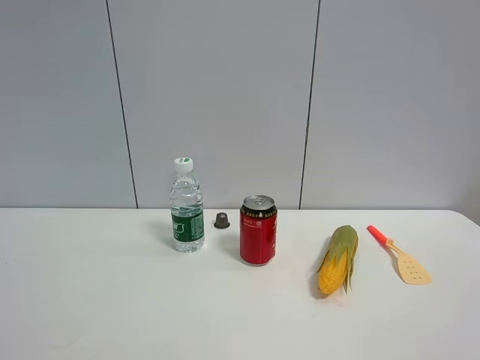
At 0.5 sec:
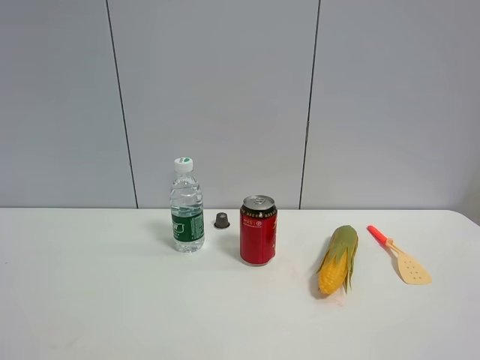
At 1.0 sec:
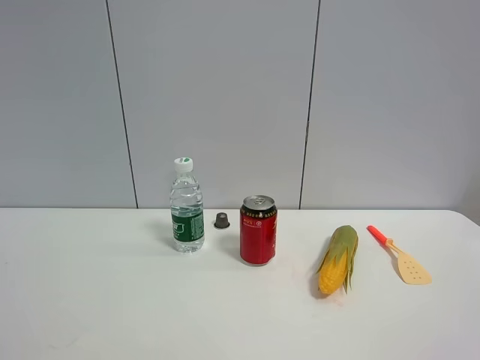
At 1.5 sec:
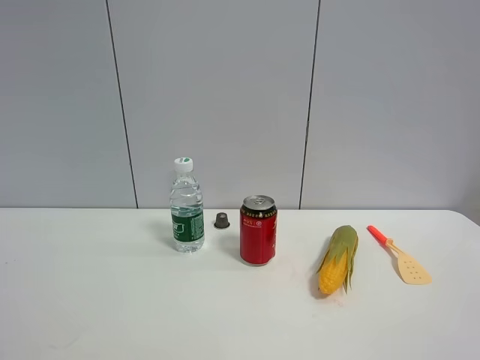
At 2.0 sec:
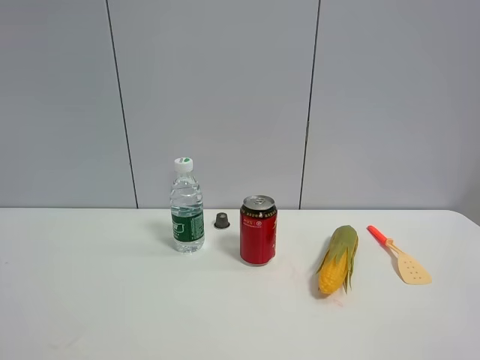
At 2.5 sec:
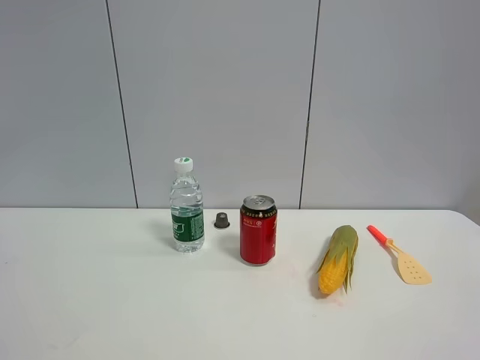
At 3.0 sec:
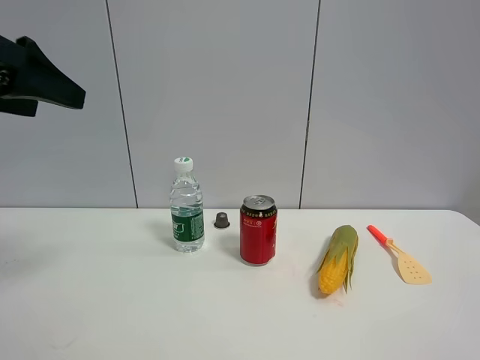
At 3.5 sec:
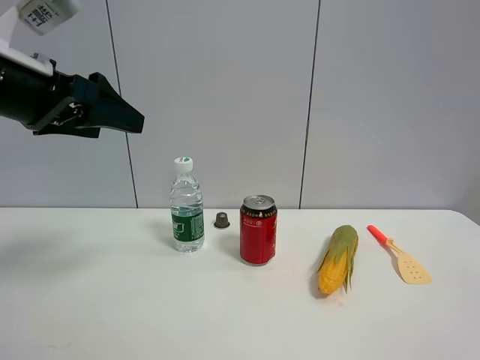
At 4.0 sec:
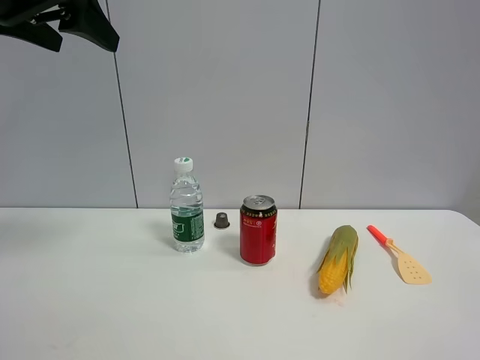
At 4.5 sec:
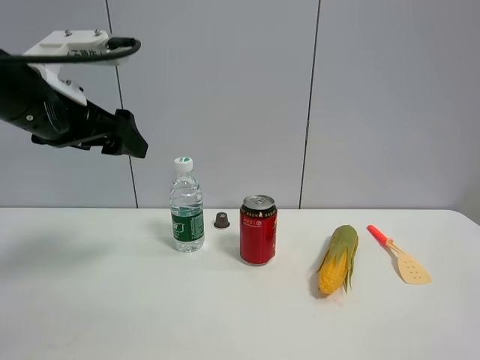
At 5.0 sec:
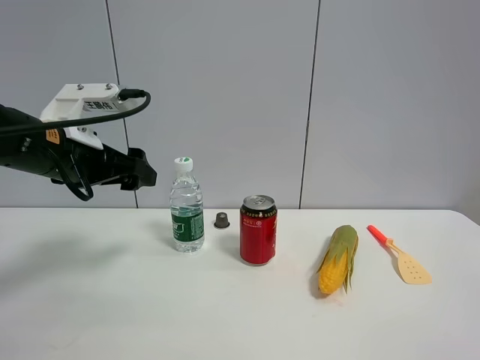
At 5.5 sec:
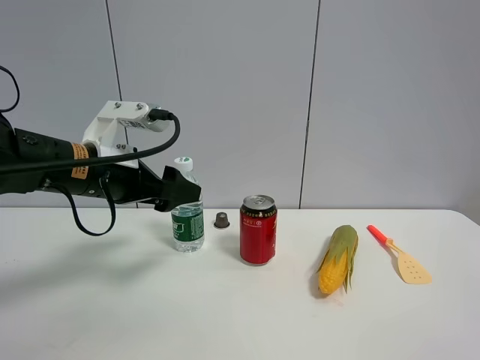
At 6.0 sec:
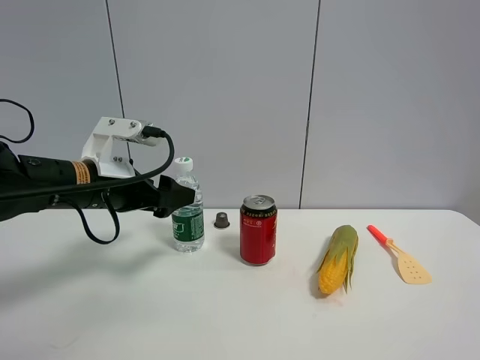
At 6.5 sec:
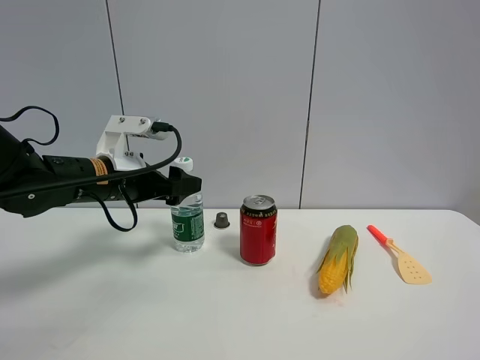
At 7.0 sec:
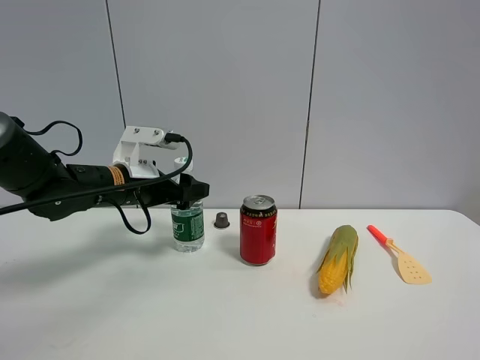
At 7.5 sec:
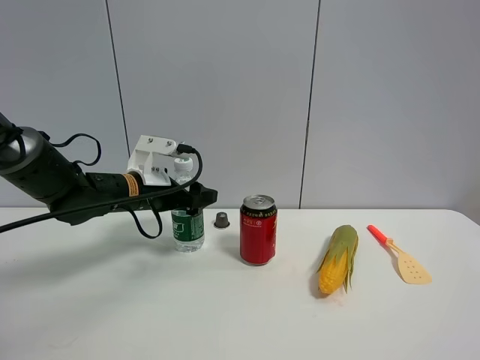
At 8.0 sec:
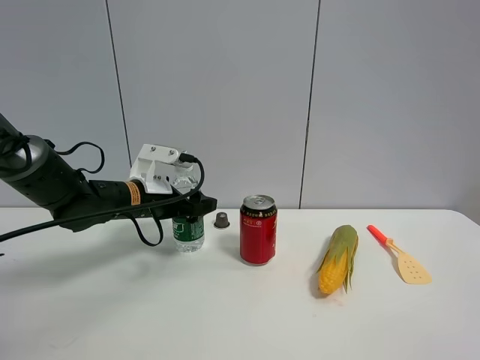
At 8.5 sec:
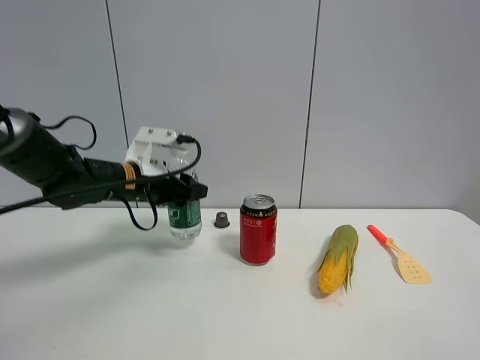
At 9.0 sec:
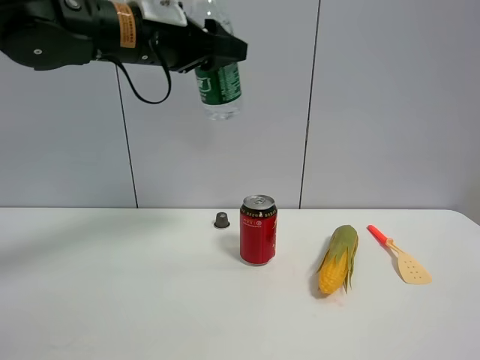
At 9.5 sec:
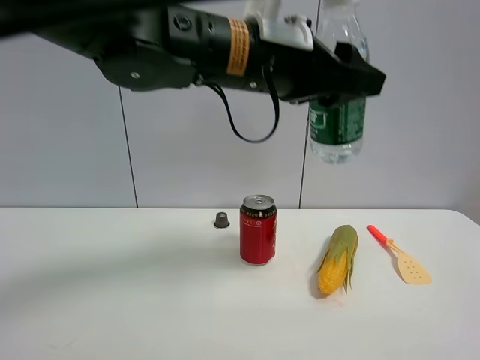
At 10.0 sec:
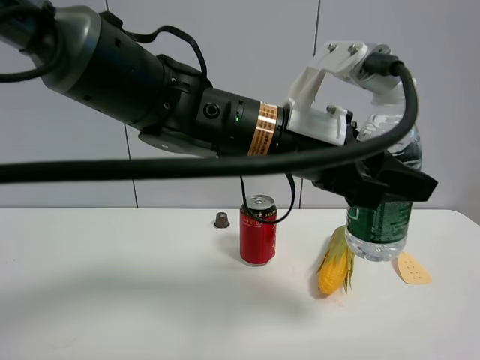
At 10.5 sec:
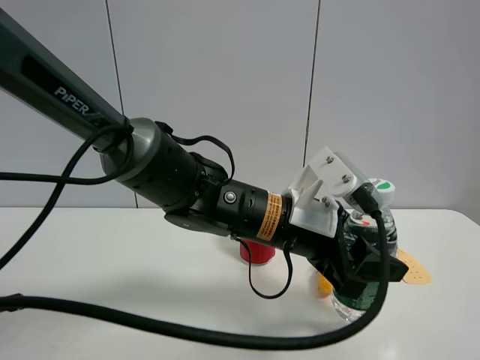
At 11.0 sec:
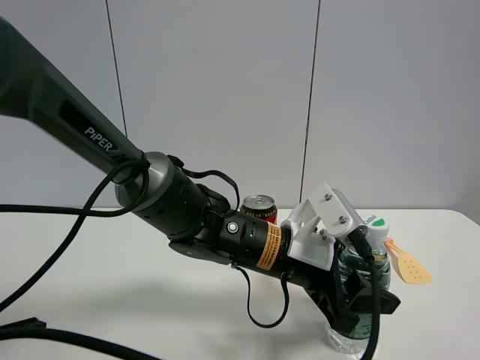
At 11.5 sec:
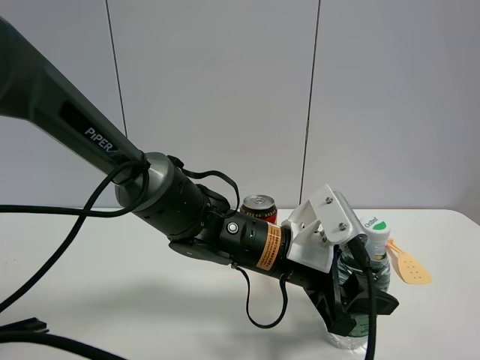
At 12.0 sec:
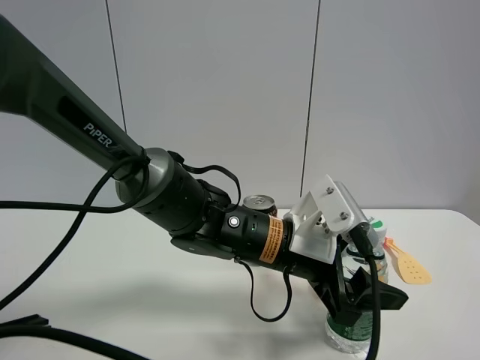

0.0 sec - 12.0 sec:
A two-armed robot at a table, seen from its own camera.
Task of the whole recording: the gripper move the object.
Step, 0.0 sec - 8.0 sec: Grasp the YiBao mineral water with the left gripper.
2.0 sec - 4.0 sec: The left gripper shifts some 30 cm forward, and opens its fingers.
4.0 sec - 6.0 sec: The left gripper shifts approximately 25 cm downward.
6.0 sec - 8.0 sec: The left gripper shifts approximately 10 cm forward and downward, and closes its fingers.
8.0 sec - 10.0 sec: The left gripper moves to the right, backward and upward, some 30 cm, and closes up.
10.0 sec - 12.0 sec: The left gripper is displaced downward by approximately 10 cm, and opens up.

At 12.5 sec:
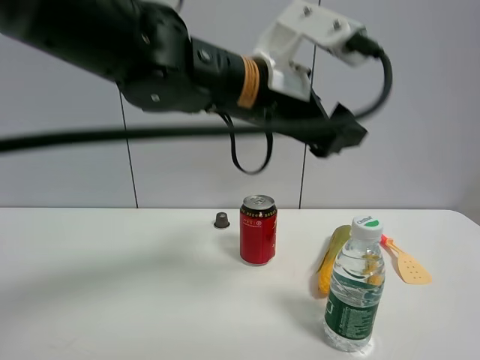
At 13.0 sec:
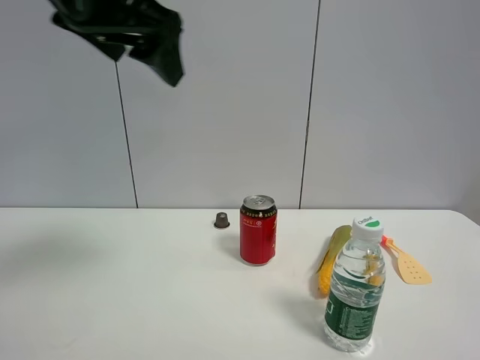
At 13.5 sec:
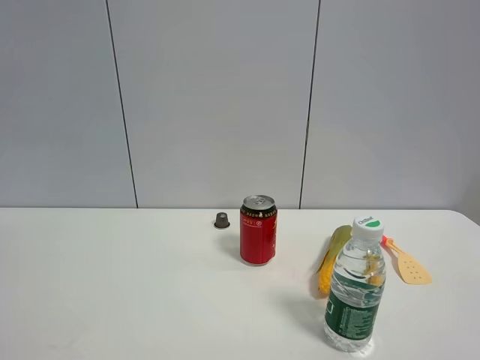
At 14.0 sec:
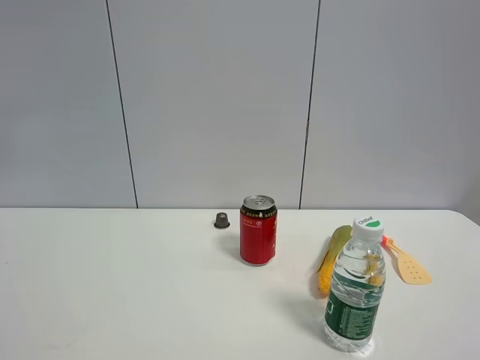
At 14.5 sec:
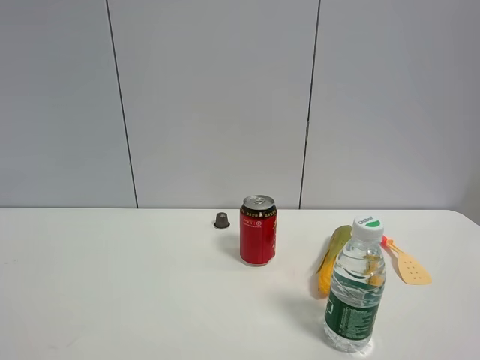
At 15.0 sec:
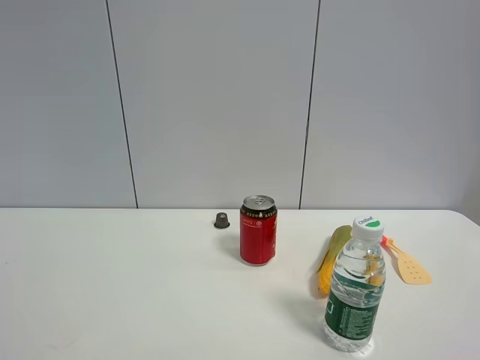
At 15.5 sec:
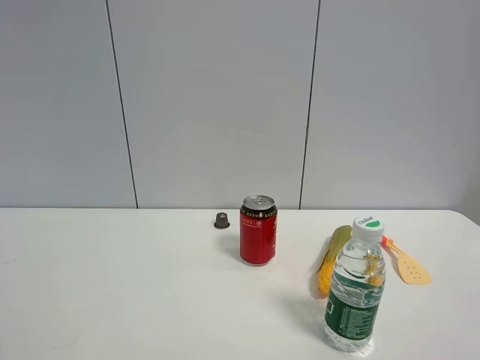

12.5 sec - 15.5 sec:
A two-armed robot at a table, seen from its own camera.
Task of the whole recording: the gripper move the object.
12.5 sec - 14.0 sec: The left gripper moves to the left and backward, roughly 40 cm.

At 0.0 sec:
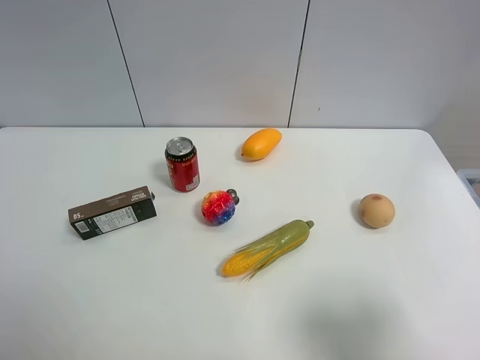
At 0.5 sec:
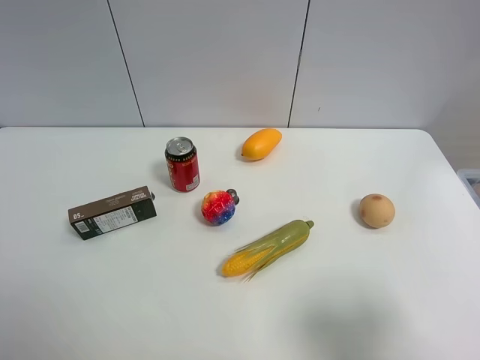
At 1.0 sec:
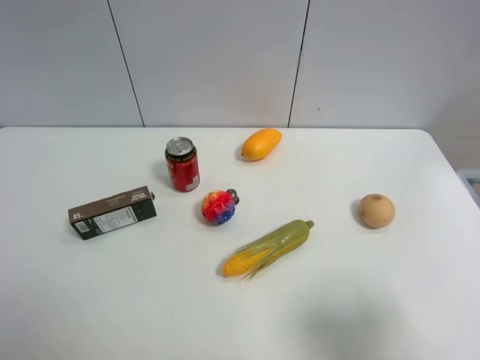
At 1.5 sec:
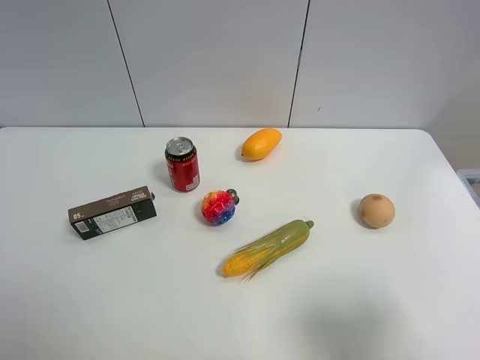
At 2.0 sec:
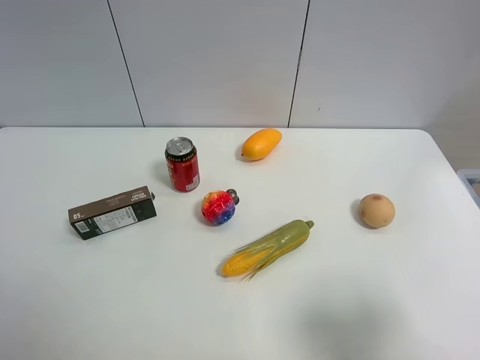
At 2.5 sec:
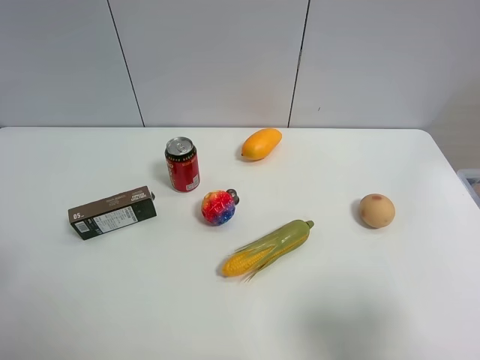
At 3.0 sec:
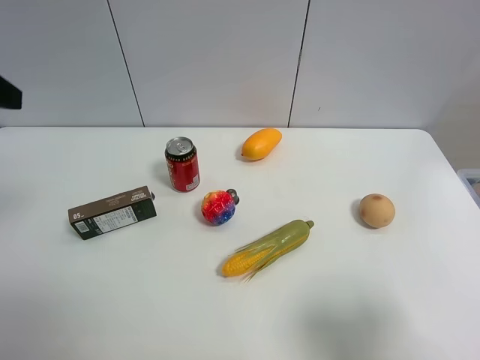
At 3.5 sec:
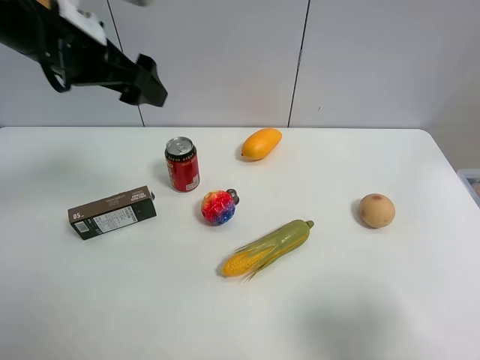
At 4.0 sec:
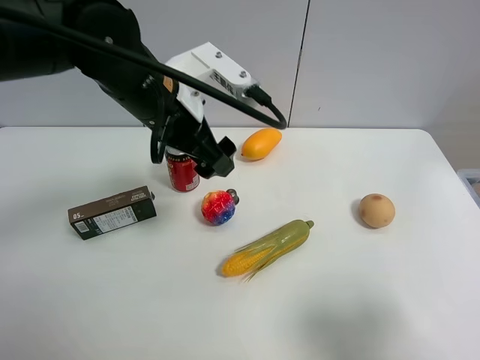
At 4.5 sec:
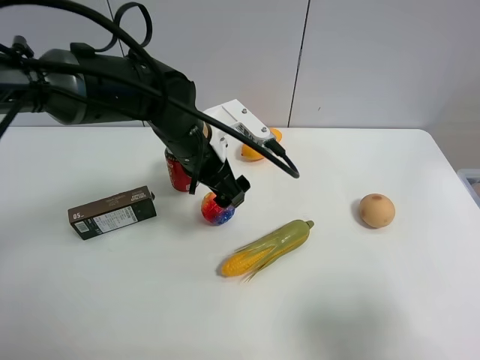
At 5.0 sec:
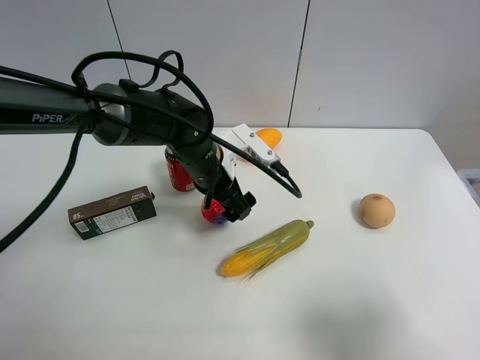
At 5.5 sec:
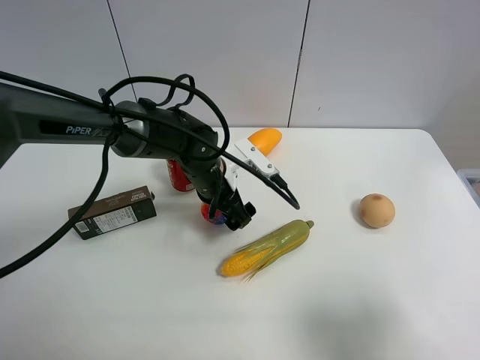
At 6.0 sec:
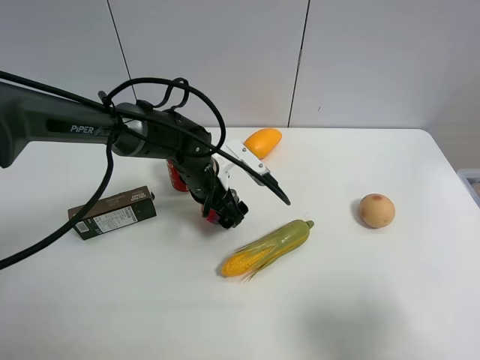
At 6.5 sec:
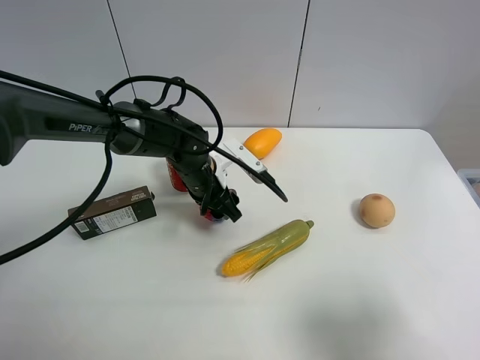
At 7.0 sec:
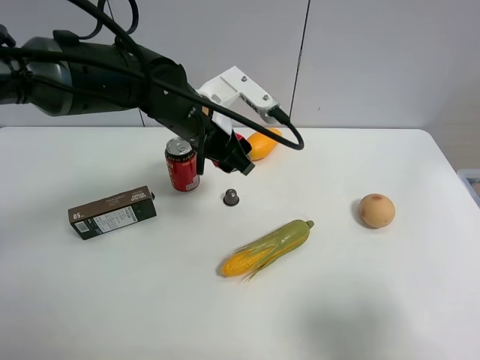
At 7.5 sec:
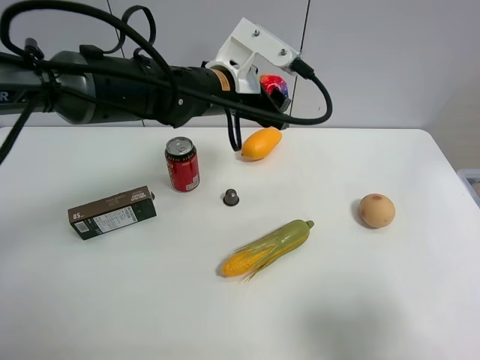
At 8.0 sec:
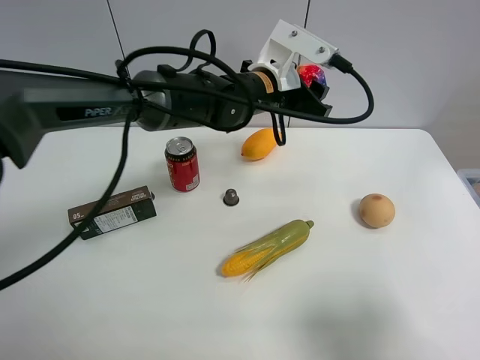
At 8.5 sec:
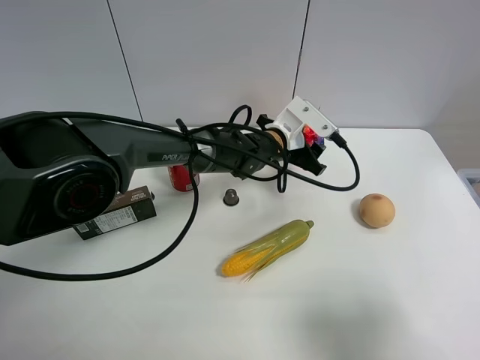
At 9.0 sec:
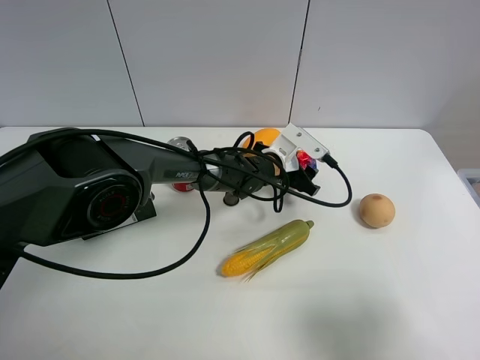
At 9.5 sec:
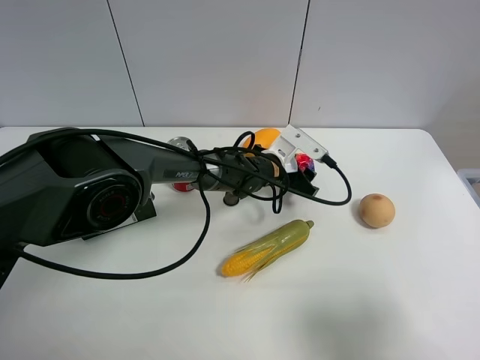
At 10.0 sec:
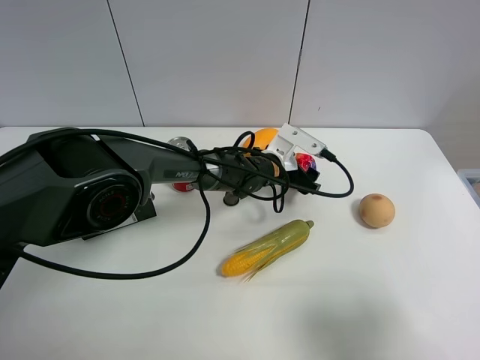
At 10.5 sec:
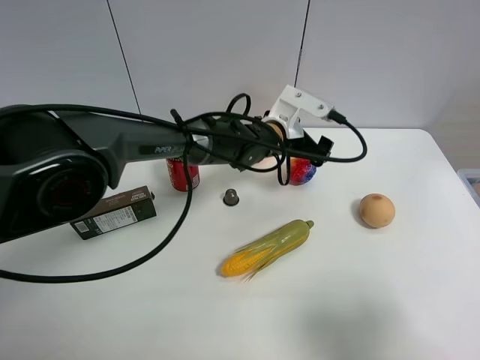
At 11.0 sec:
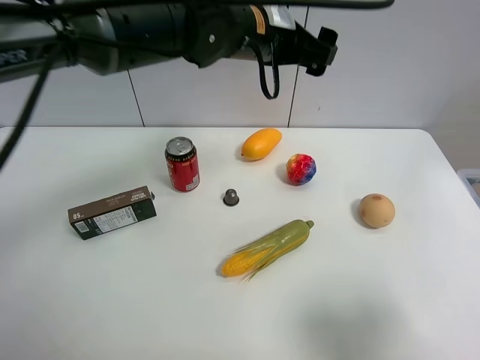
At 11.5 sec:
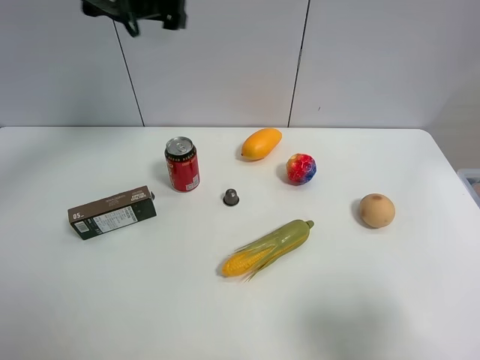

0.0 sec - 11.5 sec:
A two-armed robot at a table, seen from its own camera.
Task of the whole recording: the gripper move the object.
Step, 0.0 sec - 6.0 sec: Grasp the colorful ball with the left gripper.
Step, 6.5 sec - 9.5 sec: Place the colorful ball on the table with the left gripper.
2.0 sec - 4.0 sec: The left gripper shifts roughly 35 cm forward and to the right.
4.0 sec - 6.0 sec: The left gripper goes approximately 15 cm downward.
6.0 sec - 7.5 sec: The left gripper heads upward, covering about 15 cm, and closes.
7.5 sec - 9.5 sec: The left gripper shifts about 20 cm downward and to the right.
9.5 sec - 11.5 sec: The left gripper travels upward and to the left by some 40 cm, and opens its fingers.
